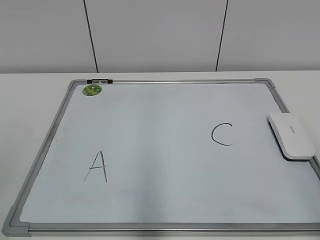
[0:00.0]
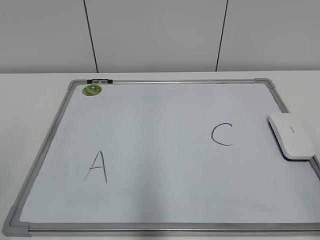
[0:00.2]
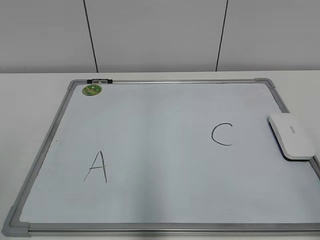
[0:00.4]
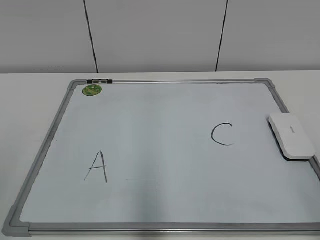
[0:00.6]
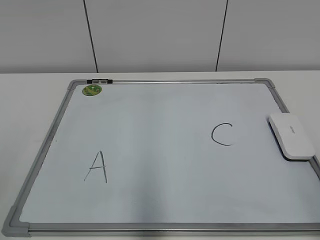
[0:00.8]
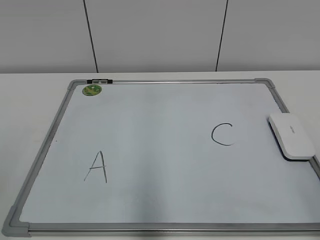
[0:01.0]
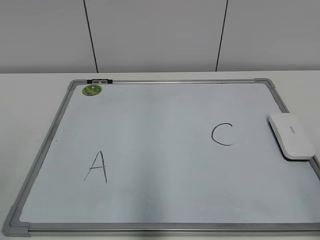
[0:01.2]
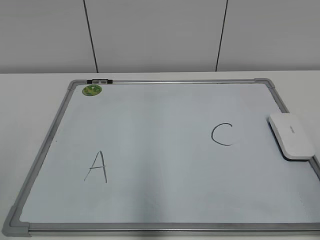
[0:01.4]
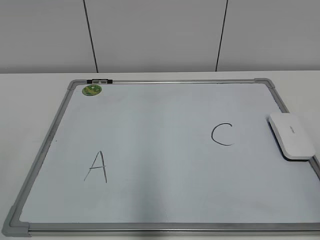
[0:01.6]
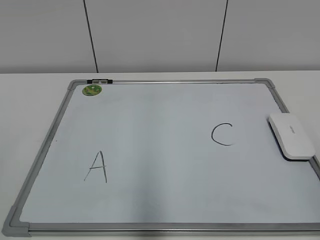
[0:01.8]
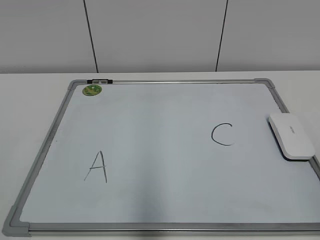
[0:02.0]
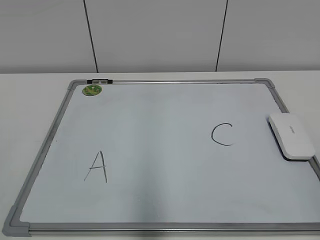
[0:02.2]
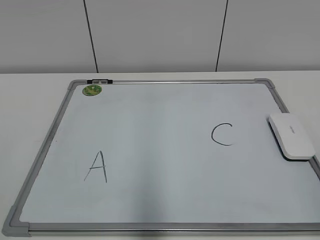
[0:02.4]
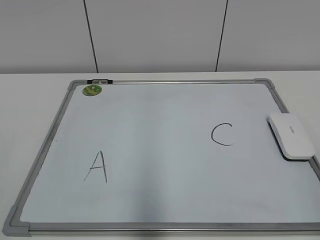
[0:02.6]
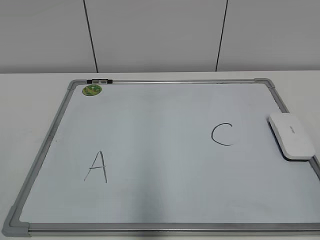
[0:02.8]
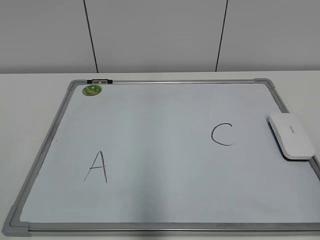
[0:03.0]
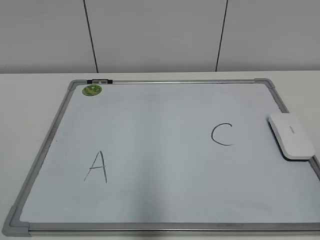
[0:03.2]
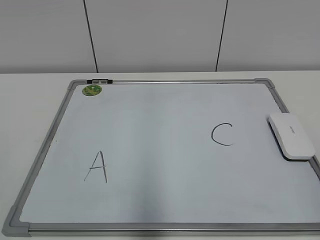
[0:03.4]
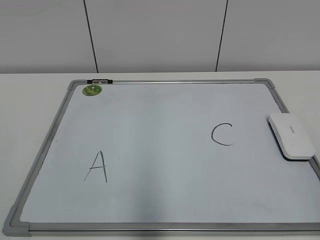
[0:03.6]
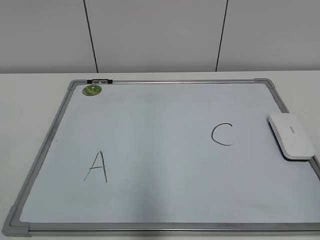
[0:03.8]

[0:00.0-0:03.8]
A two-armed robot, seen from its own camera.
Task of the whole recording: pick up the eraser on the blackboard and erase the letter "B".
0:02.6 to 0:03.8: Both grippers stay about where they are.

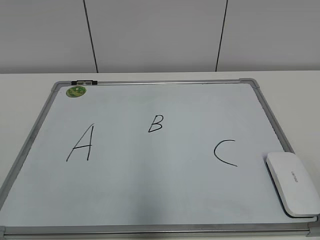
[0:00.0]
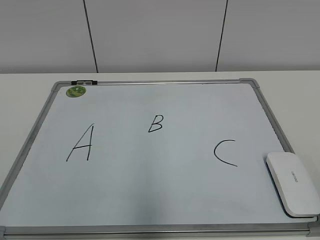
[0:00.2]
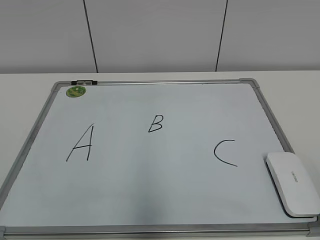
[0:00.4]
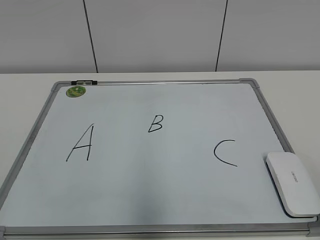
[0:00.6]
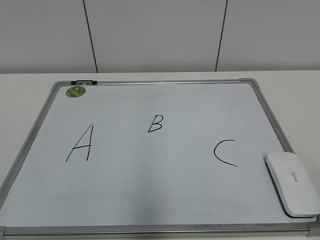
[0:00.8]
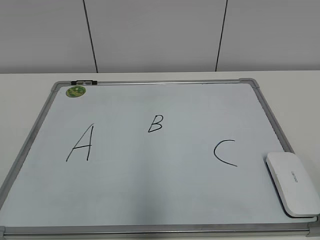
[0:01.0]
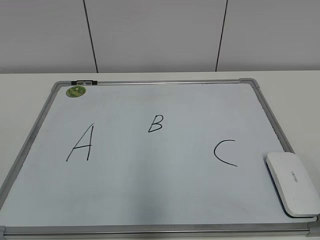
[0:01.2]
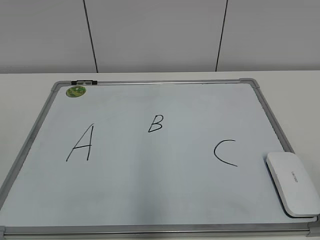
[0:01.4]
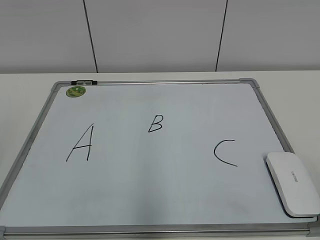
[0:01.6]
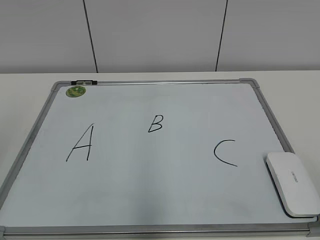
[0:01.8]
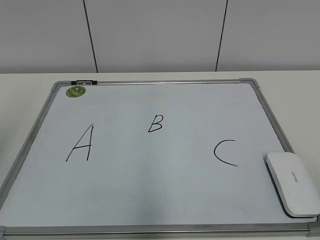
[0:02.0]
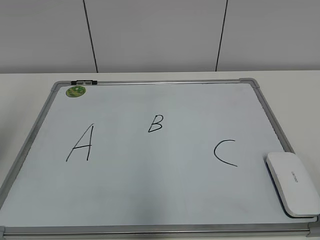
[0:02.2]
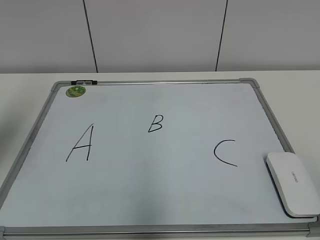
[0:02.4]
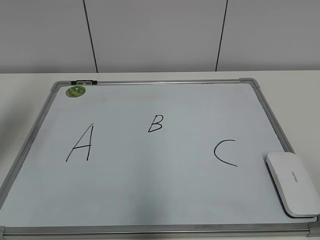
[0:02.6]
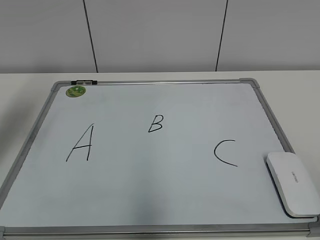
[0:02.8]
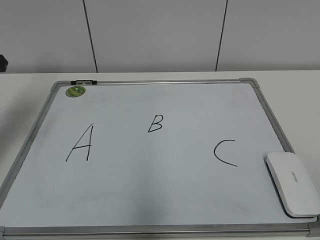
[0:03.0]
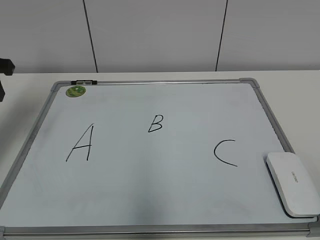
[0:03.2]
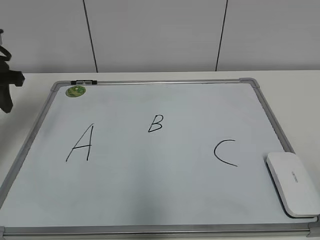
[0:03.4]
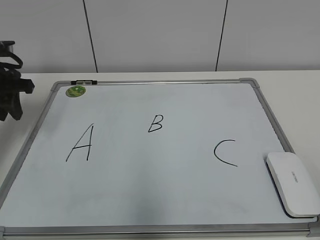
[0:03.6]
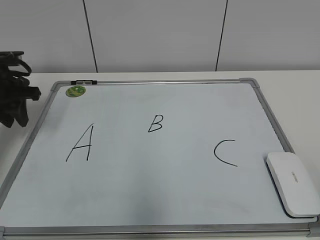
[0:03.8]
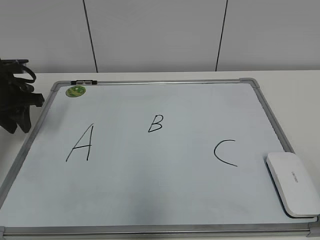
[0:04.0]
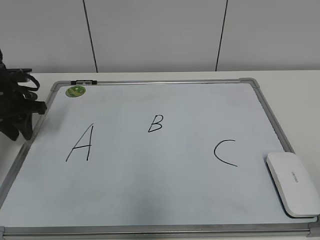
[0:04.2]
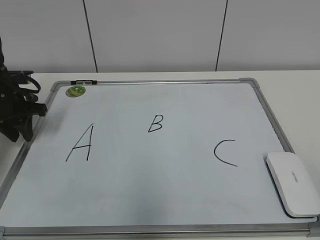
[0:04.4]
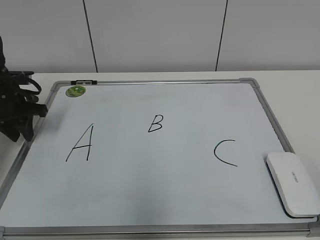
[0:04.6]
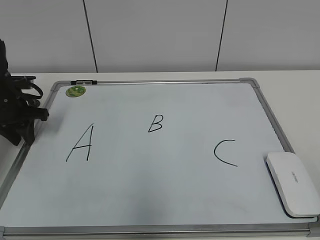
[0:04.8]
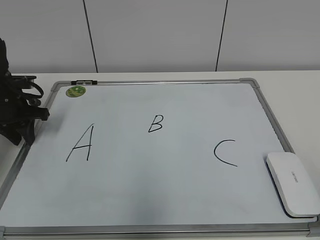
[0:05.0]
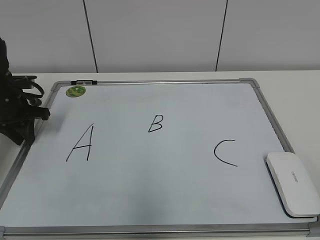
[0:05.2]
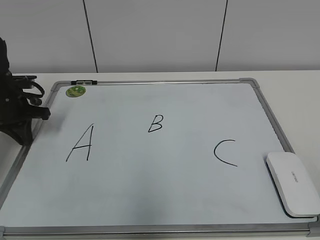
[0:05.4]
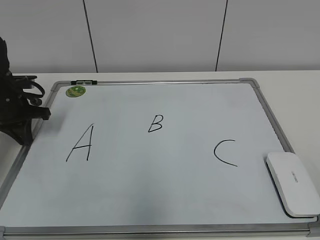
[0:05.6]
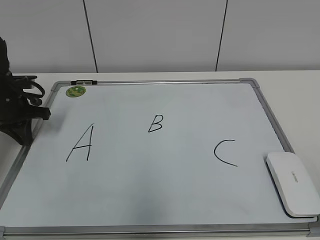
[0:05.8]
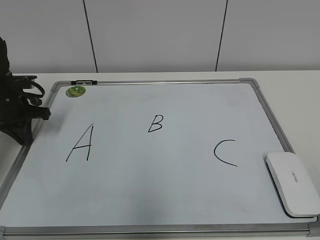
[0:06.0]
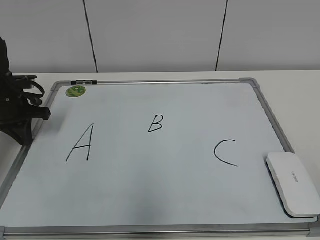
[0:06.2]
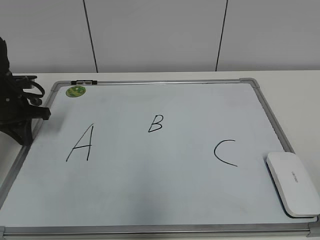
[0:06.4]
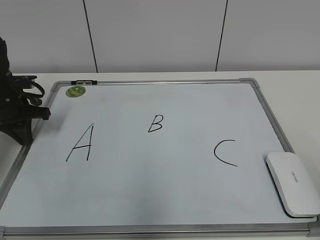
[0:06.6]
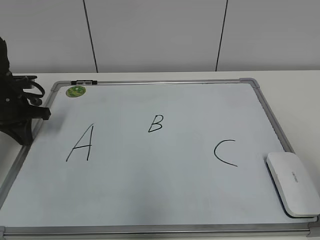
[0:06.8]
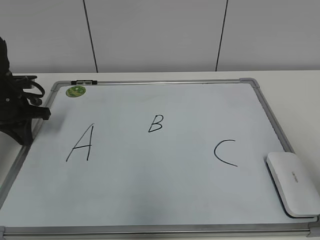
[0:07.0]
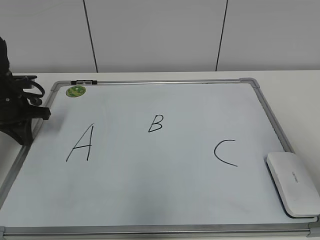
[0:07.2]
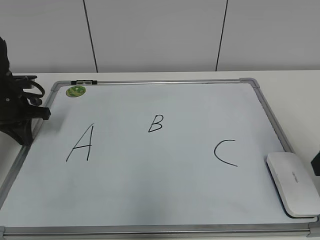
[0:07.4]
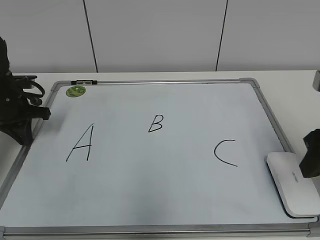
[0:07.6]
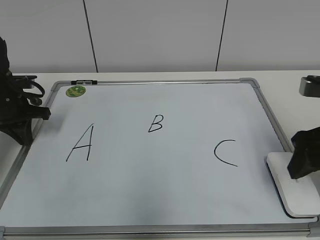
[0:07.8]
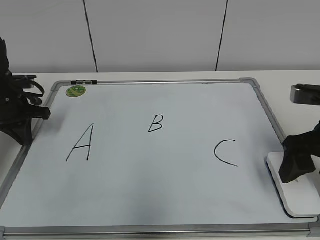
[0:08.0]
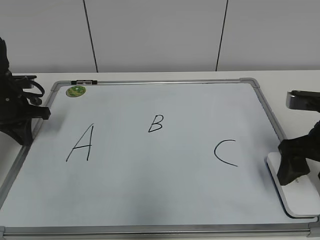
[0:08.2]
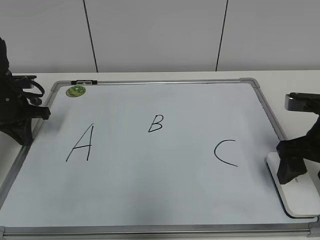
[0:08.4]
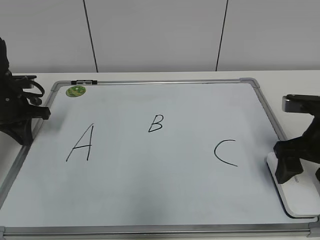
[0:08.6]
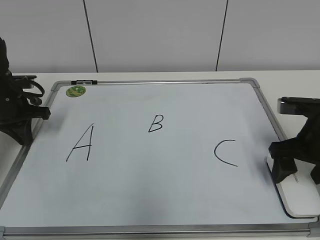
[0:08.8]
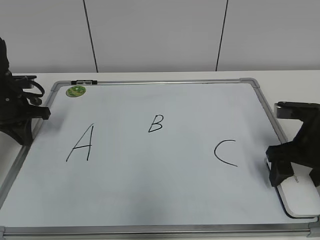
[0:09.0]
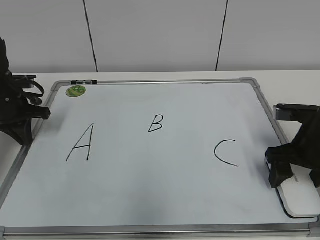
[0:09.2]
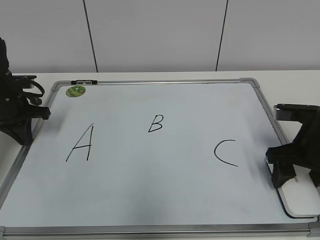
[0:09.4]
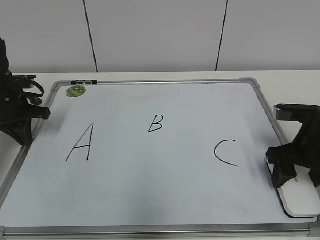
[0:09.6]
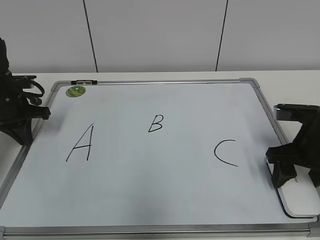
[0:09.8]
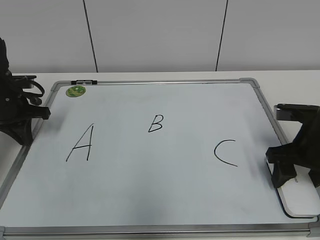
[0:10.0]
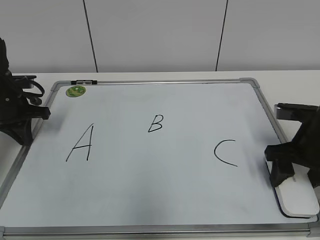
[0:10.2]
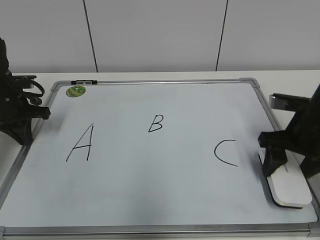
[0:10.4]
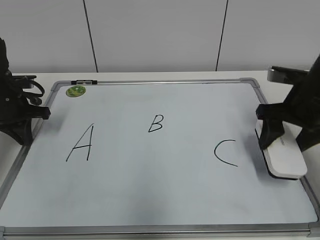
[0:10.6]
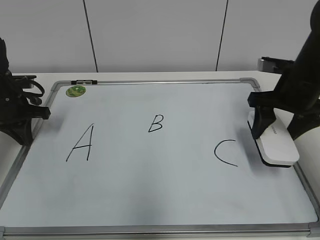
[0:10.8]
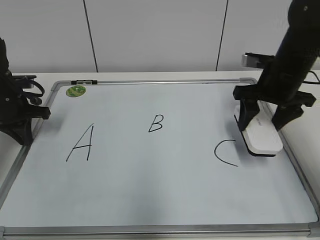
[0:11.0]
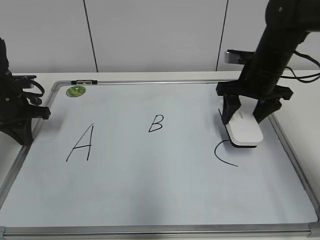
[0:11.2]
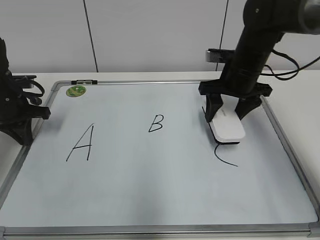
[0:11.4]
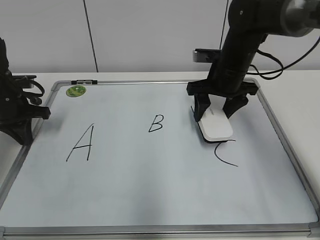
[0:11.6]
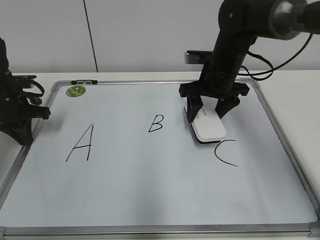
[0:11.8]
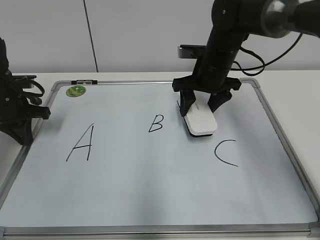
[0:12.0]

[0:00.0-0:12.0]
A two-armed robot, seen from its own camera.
Task of the whole recording: pick up the eraser on the blackboard and erase the letter "B".
Step, 0:00.0 to 0:05.2: Hold the drawing board steady with your left hand.
Step, 0:05.6 to 0:09.8: Grab the eraser with your right hand.
0:01.6 to 0:03.0: The left gripper is displaced forward by approximately 25 cm.
0:03.0 to 0:04.4: The left gripper moves downward and forward, roughly 15 cm.
0:04.4 to 0:06.0: The left gripper closes its fingers.
0:06.0 to 0:07.6: The right gripper moves forward, roughly 25 cm.
0:07.6 to 0:09.0: The right gripper travels downward and forward by approximately 10 cm, and opens up.
0:09.0 to 0:10.4: The right gripper closes up.
0:10.4 to 0:12.0: The right gripper moves forward and to the left, some 20 cm.

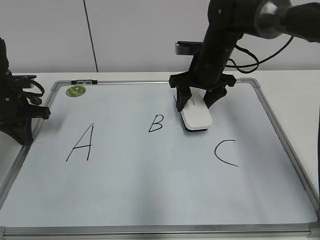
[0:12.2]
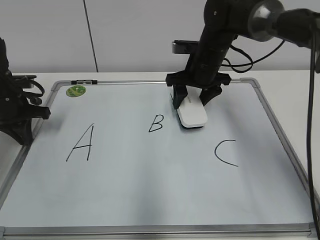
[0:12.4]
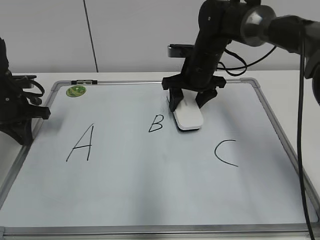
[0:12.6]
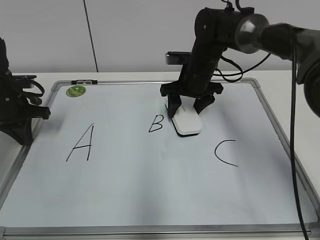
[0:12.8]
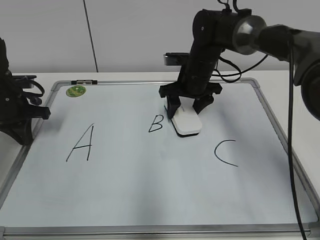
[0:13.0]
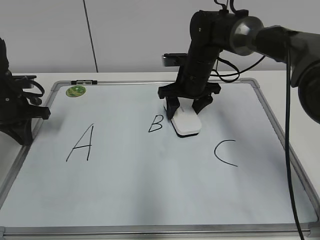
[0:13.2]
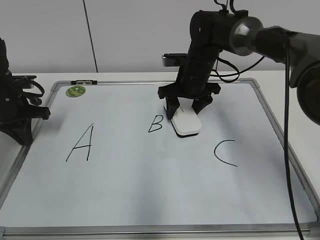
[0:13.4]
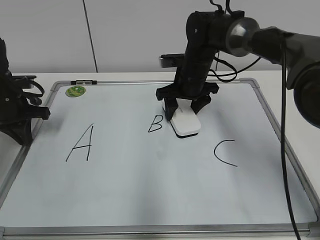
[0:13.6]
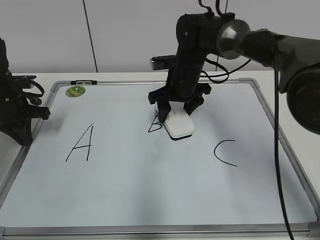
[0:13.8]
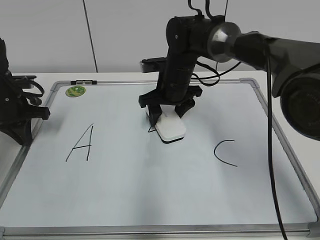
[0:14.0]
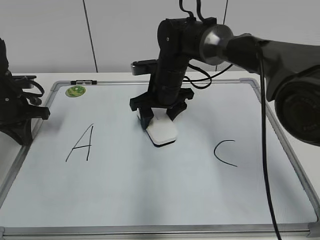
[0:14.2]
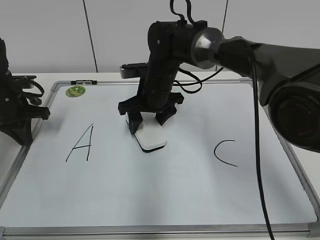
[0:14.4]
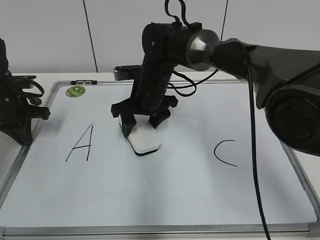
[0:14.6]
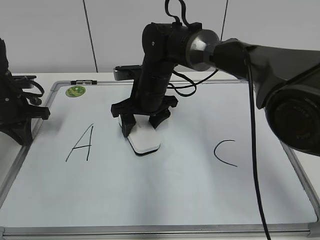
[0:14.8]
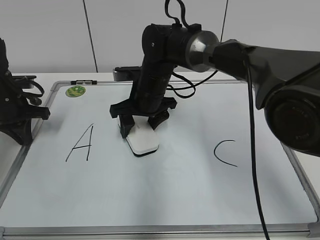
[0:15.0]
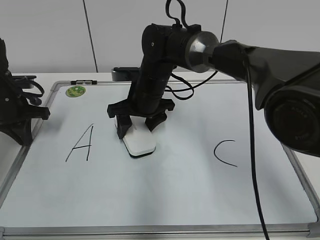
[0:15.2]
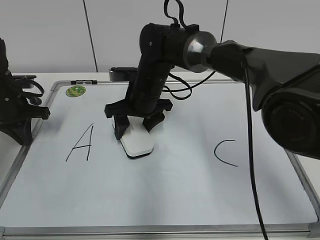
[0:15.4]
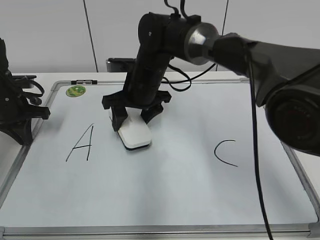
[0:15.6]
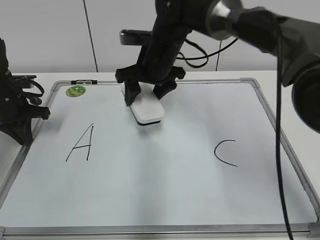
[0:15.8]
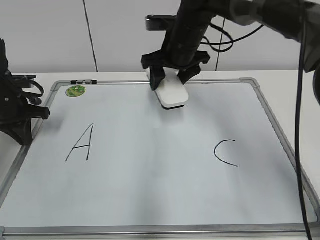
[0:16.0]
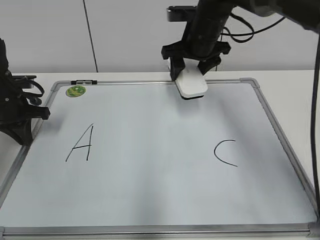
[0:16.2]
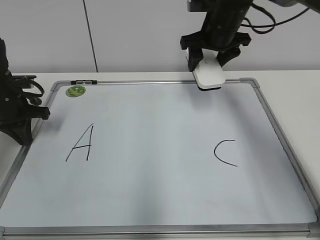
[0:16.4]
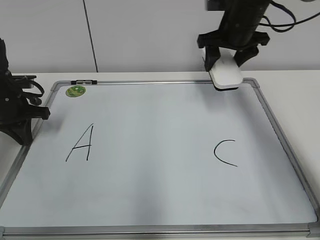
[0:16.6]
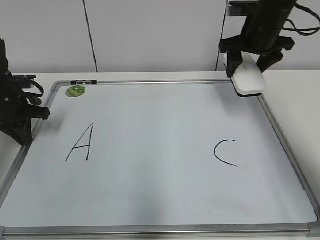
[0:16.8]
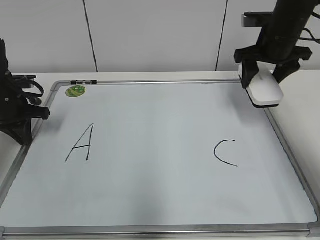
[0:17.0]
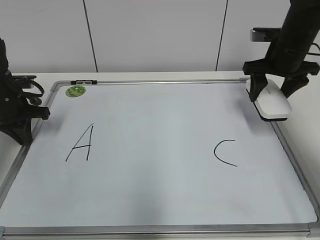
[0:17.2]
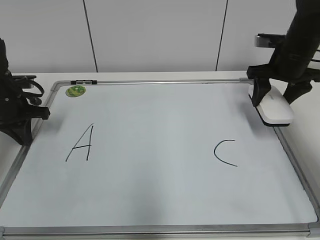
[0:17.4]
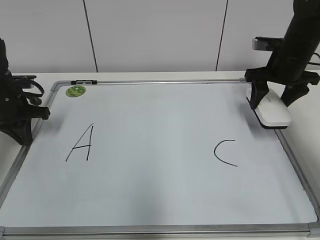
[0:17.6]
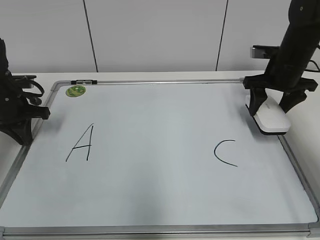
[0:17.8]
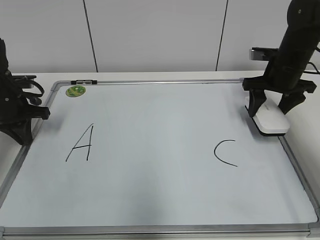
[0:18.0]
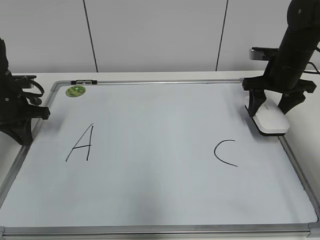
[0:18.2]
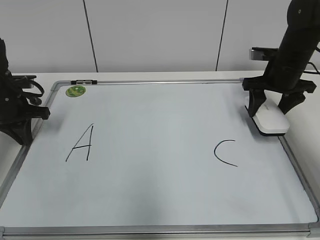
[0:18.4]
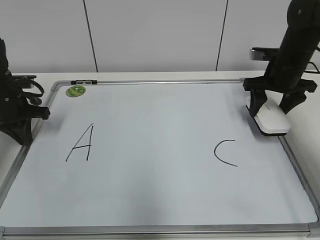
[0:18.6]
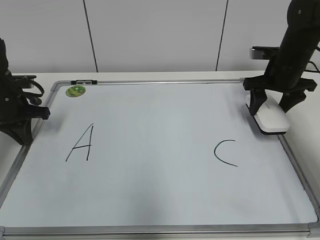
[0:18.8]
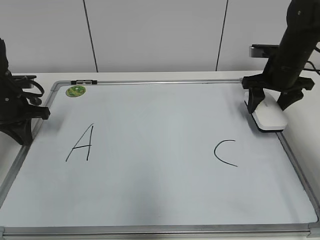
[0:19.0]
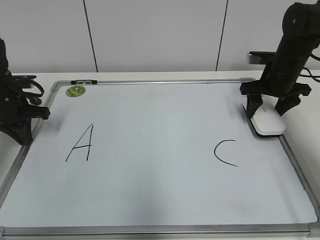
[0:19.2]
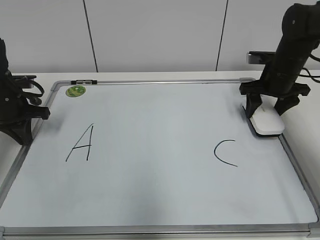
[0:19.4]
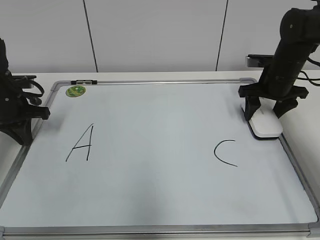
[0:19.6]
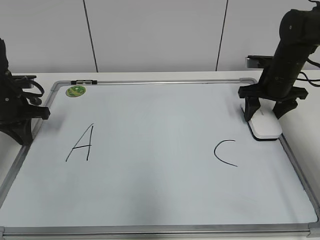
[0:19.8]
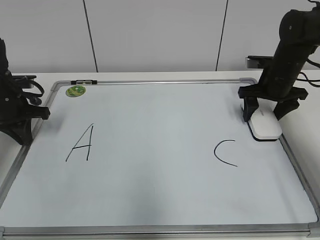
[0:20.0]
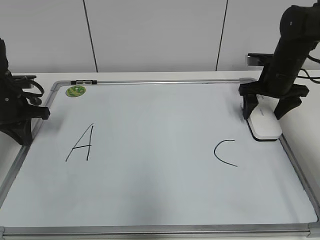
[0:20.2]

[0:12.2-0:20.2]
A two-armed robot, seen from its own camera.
Task of the whole recording: pick up the eraser on the blackboard and erase the letter "B".
Step, 0:12.2 to 0:15.2: Erase the letter B with your right hand.
0:12.2 to 0:13.8: The right gripper shifts by about 5 cm.
0:13.8 to 0:15.4: The right gripper moves to the left, approximately 10 cm.
0:15.4 to 0:17.0: The right gripper moves to the right, approximately 25 cm.
0:17.0 to 0:18.6: The right gripper goes approximately 5 cm downward.
0:18.6 to 0:20.2: The right gripper opens up.
